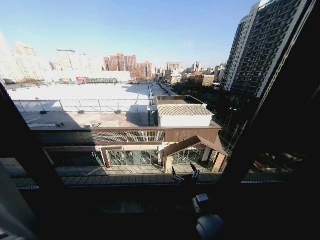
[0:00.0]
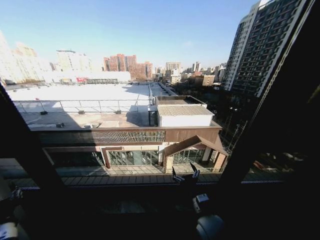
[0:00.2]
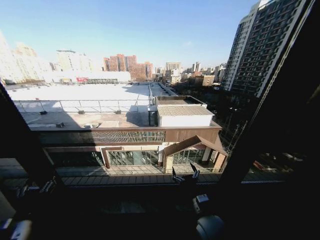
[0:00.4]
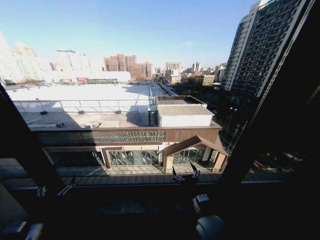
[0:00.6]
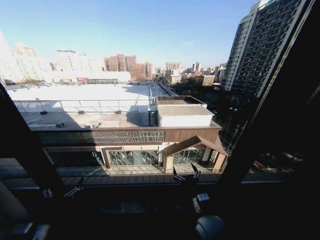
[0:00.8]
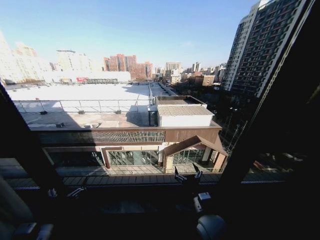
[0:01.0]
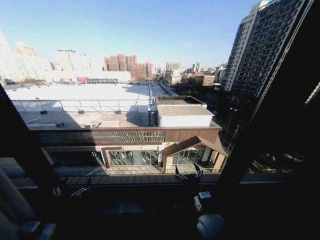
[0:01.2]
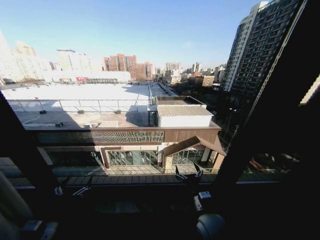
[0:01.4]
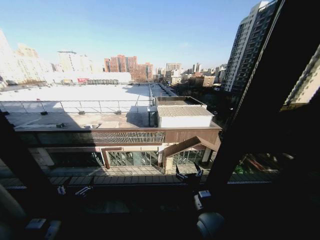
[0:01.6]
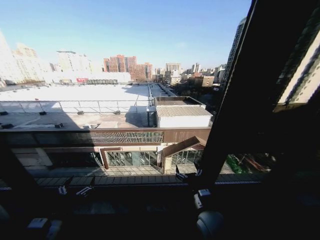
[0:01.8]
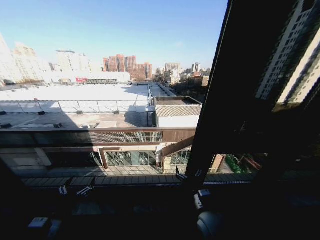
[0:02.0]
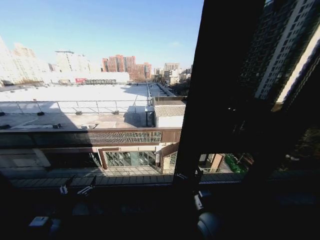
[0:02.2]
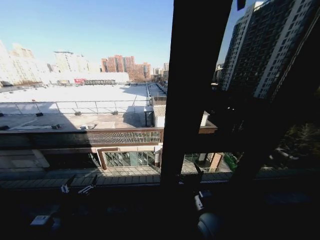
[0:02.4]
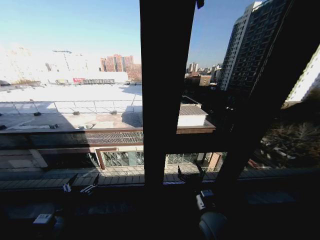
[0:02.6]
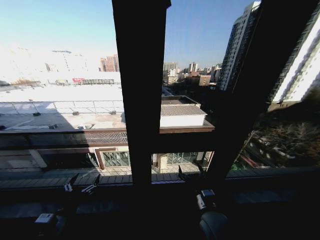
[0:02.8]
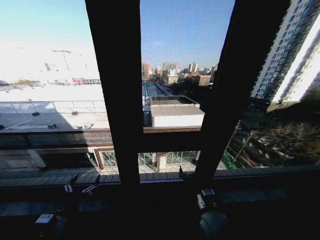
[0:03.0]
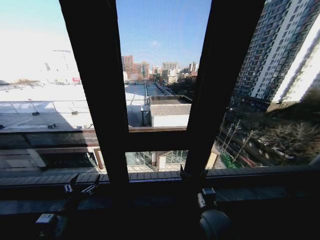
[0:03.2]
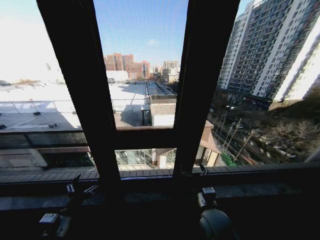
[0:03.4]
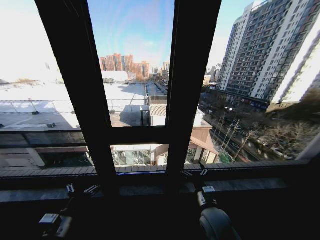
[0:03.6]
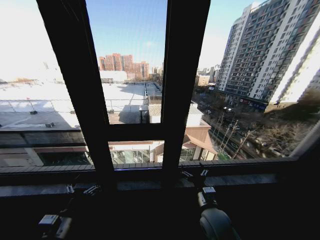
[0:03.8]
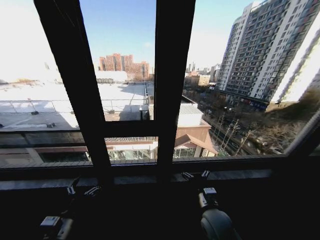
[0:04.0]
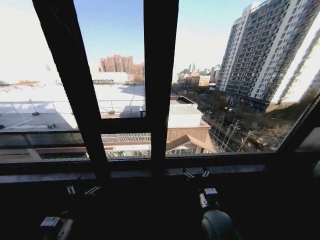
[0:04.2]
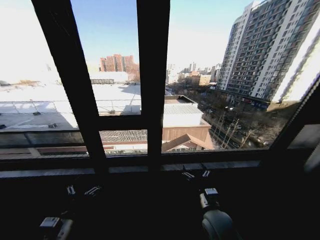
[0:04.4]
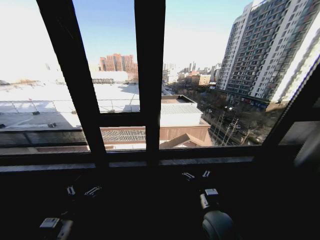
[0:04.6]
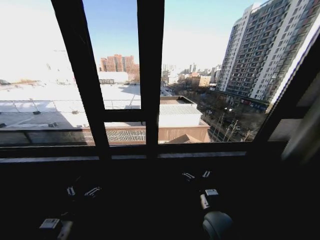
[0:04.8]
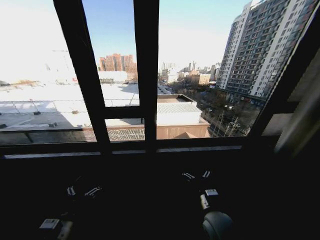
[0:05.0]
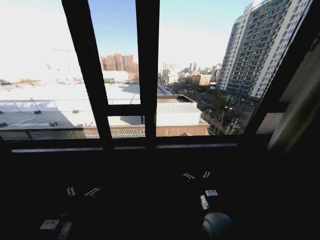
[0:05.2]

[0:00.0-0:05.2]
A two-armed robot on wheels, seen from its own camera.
Task of the whole recording: Open the curtains by pulling them apart, changing their state from closed to fully open.
0:00.0 to 0:01.8: The left gripper shifts roughly 10 cm to the right, and opens up.

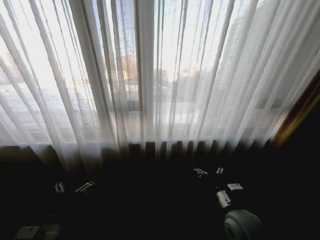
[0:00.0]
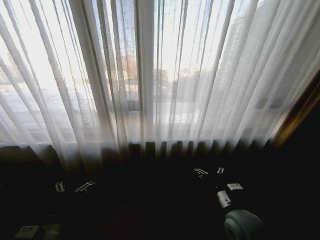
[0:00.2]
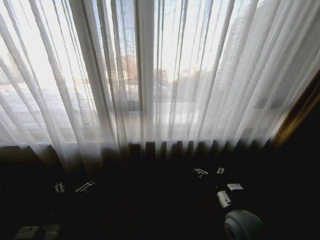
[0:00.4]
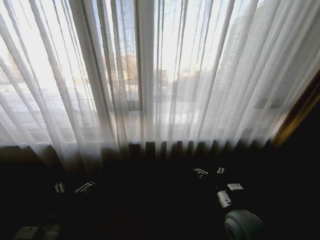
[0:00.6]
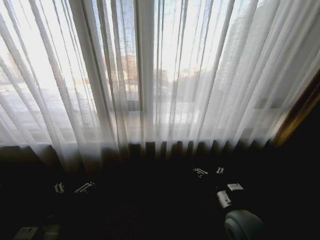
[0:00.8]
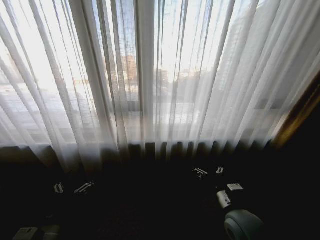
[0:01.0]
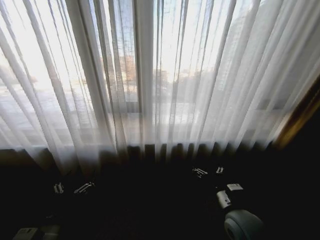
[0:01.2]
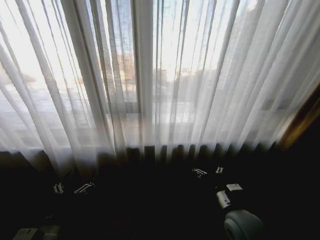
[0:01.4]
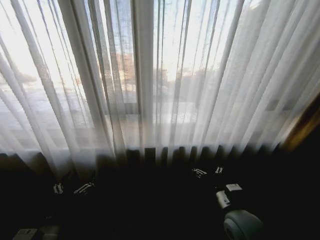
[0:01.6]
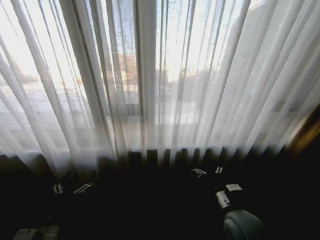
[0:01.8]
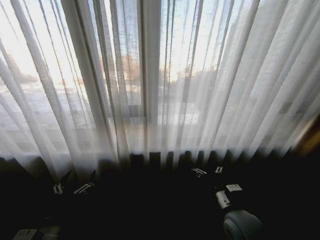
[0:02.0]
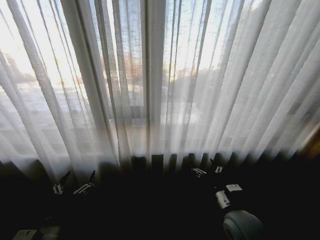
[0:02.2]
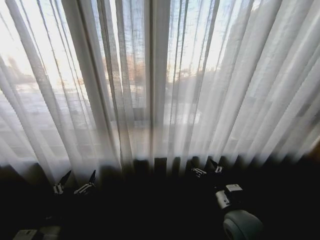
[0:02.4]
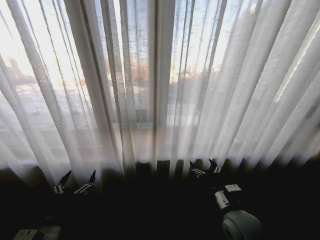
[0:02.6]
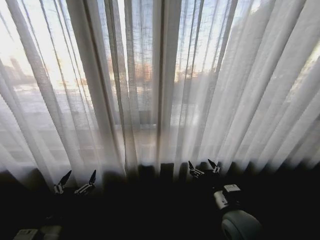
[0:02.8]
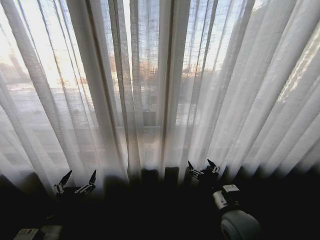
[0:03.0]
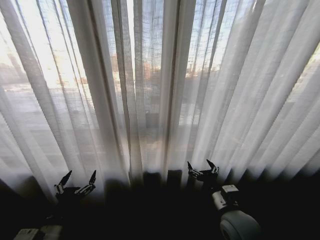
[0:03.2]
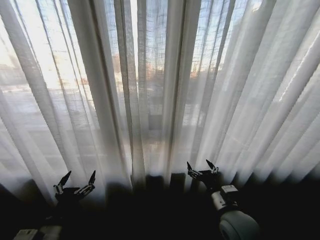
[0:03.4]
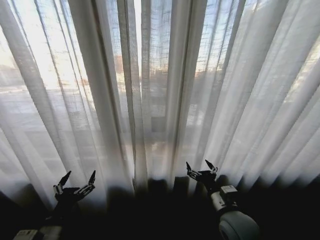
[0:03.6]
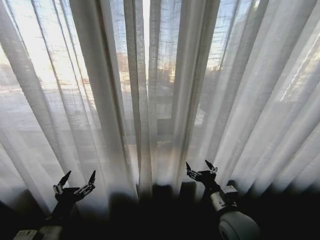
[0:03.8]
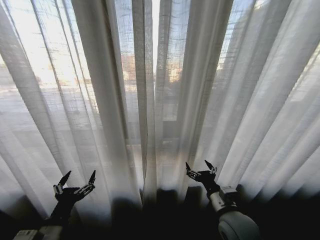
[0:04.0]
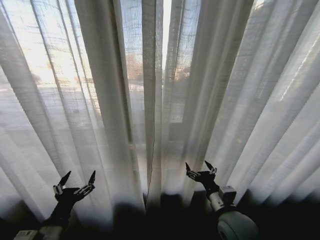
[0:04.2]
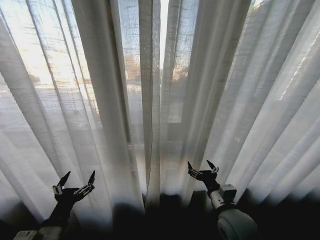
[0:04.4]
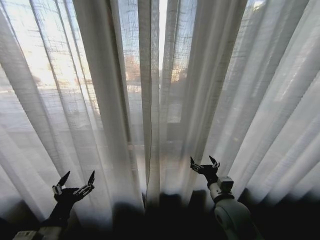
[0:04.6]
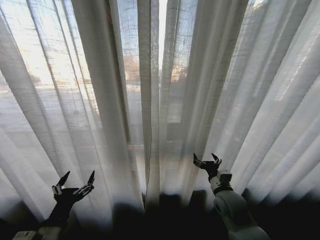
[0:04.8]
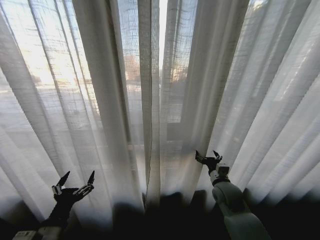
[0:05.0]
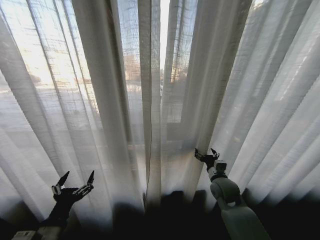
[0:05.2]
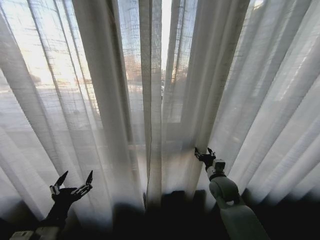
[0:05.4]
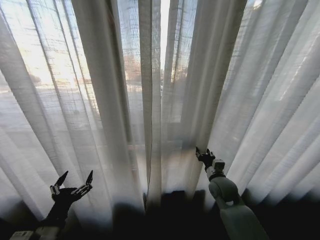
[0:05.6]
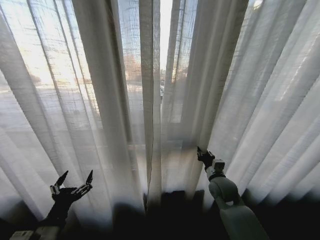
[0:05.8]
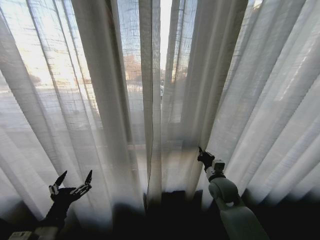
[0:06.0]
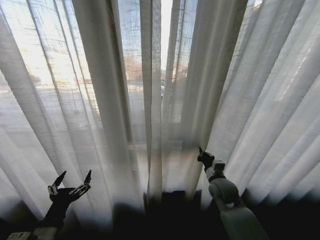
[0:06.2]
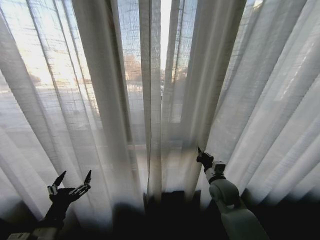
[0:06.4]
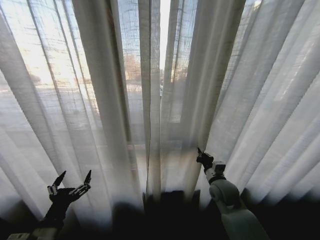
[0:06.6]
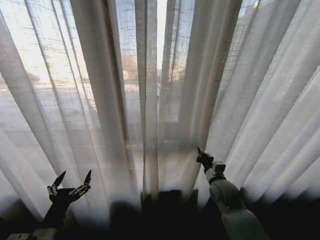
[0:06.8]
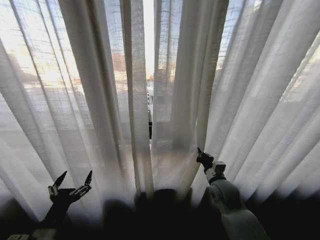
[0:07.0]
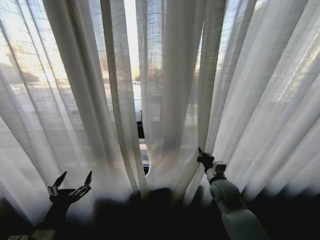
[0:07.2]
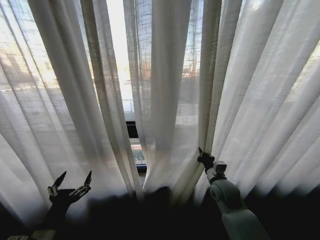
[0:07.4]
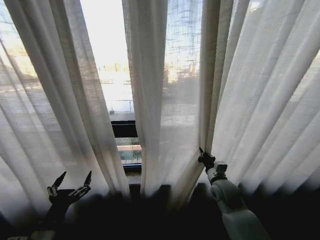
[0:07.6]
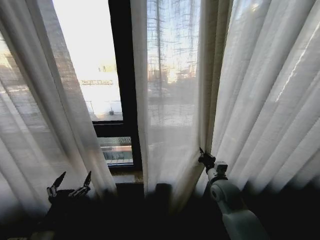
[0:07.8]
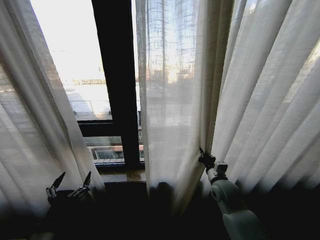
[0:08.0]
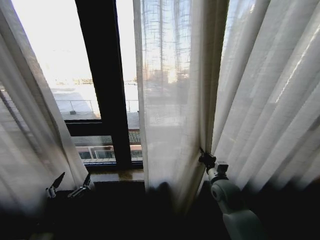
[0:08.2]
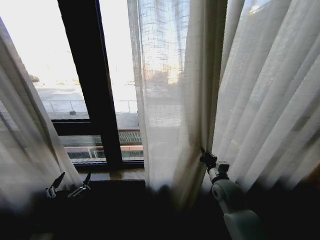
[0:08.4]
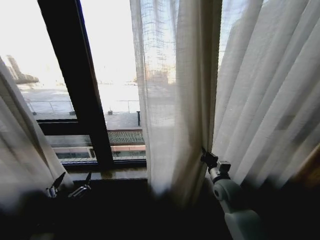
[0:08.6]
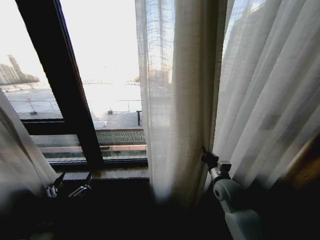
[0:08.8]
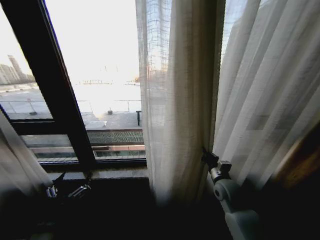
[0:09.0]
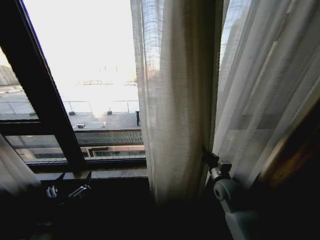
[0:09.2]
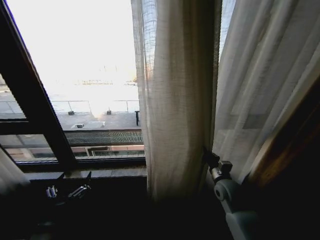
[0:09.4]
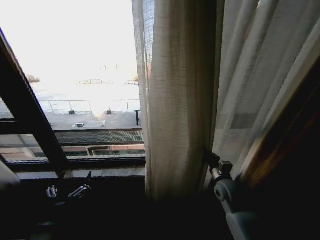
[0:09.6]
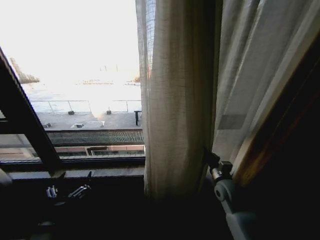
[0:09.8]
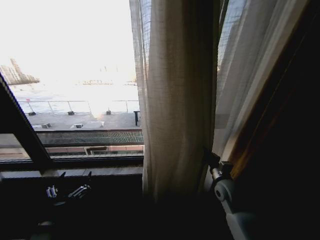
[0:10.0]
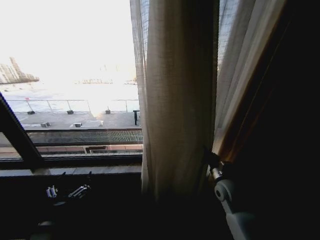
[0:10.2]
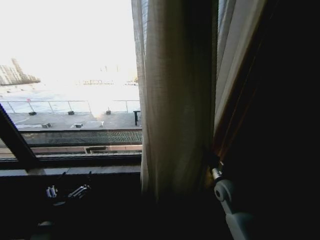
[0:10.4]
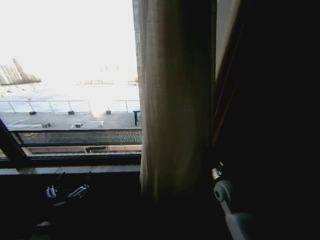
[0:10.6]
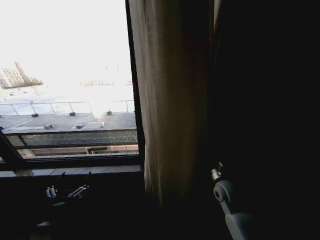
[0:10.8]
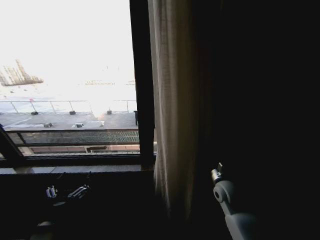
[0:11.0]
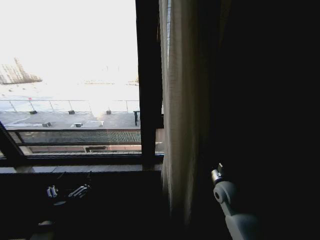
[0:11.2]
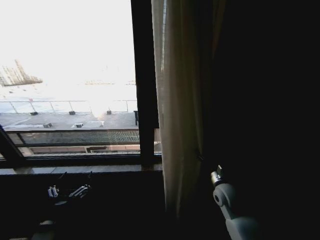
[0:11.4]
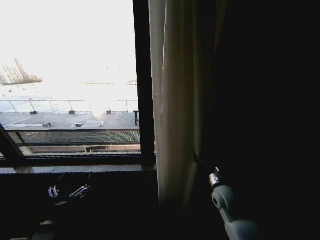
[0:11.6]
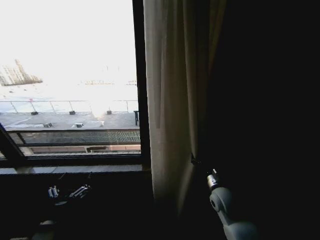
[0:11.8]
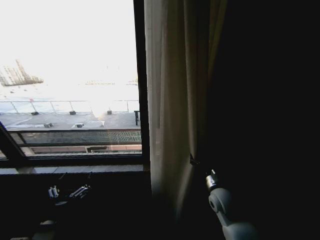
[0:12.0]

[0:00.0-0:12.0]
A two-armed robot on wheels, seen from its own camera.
Task of the whole recording: Open the curtains by pulling them apart, changing their state from closed to fully open.
0:04.4 to 0:06.0: The right gripper goes some 15 cm forward, and closes up.
0:10.4 to 0:12.0: The right gripper opens up.

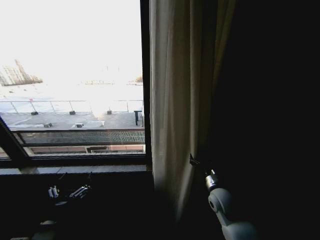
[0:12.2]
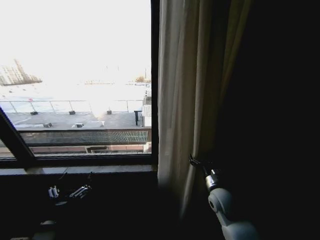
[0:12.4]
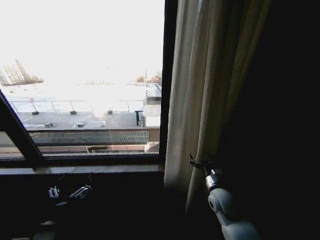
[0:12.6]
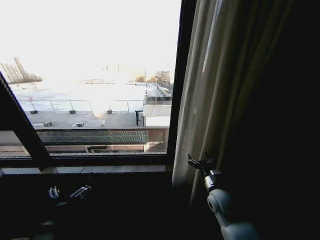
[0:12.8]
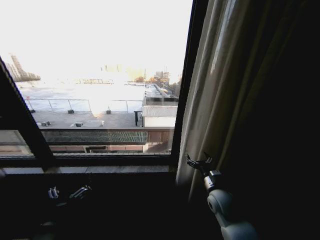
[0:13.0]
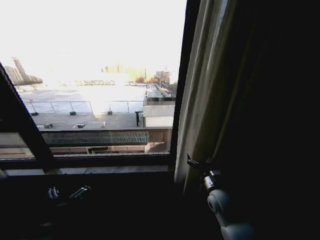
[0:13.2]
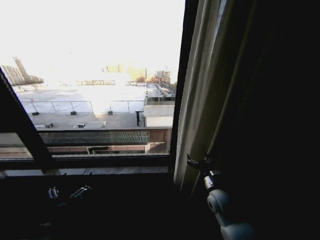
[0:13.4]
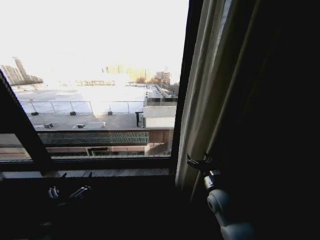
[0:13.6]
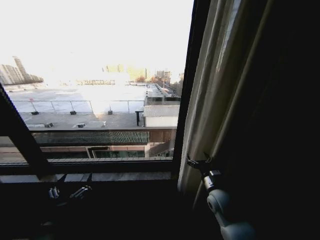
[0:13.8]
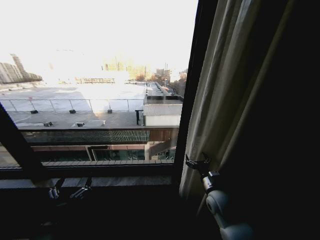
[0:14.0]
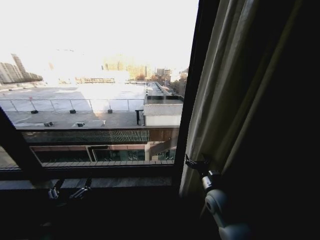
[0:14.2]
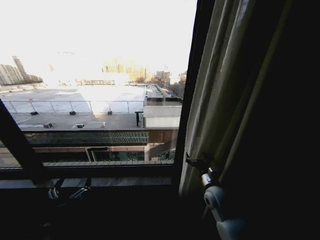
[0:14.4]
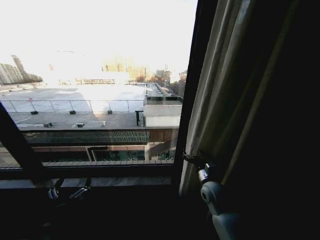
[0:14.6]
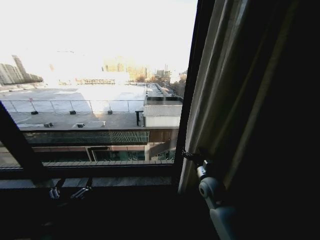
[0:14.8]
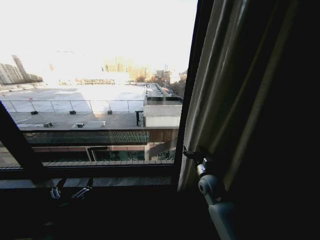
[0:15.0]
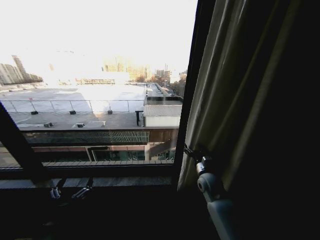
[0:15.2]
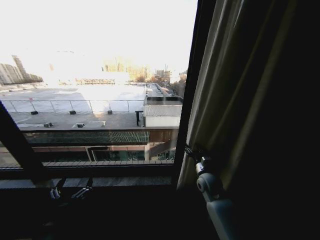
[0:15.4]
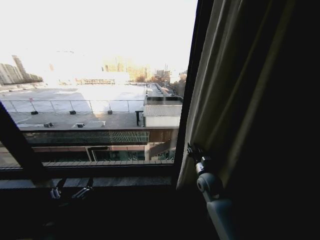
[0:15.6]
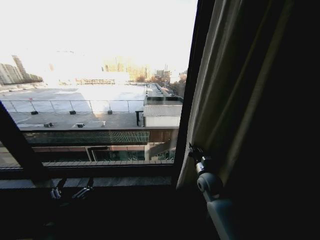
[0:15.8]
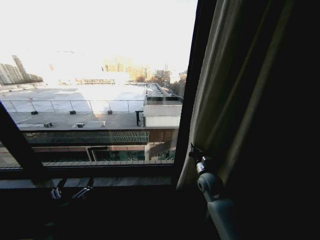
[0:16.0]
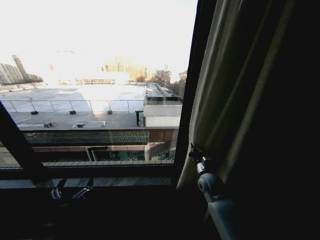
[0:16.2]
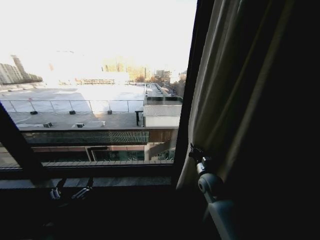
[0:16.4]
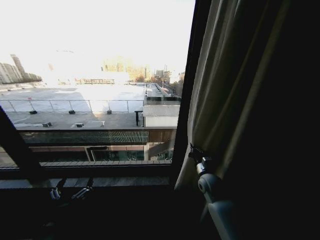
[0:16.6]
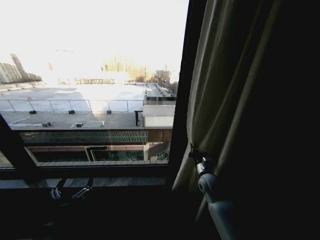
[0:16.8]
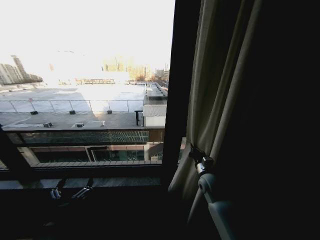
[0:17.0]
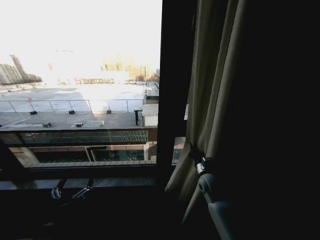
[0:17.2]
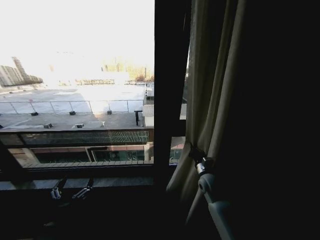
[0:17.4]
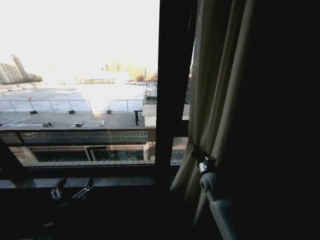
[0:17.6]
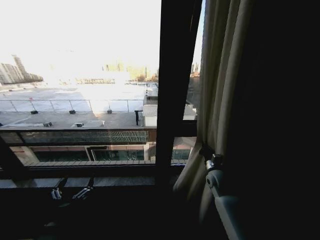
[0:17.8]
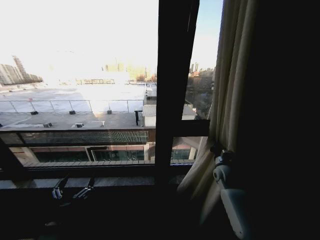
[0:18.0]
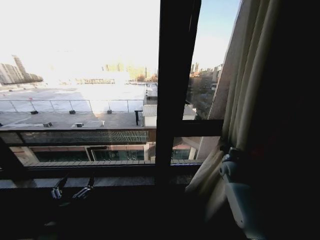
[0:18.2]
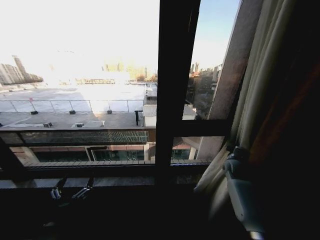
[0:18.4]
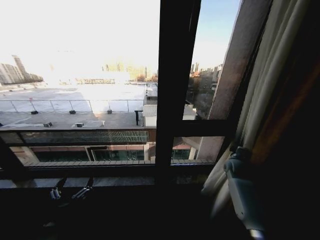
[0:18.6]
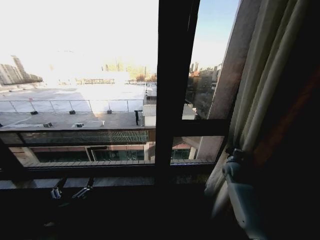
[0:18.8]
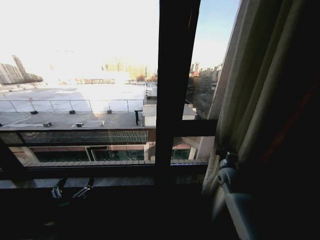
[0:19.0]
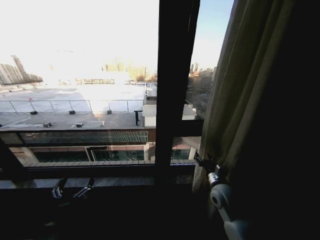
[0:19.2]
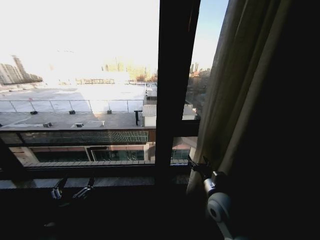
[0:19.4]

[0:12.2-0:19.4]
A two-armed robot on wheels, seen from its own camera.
Task of the whole recording: Open the curtains by pulling them apart, changing their state from closed to fully open.
0:13.6 to 0:15.0: The right gripper travels forward by some 5 cm.
0:15.0 to 0:16.6: The right gripper closes up.
0:16.6 to 0:18.0: The right gripper shifts some 10 cm to the right.
0:18.0 to 0:19.4: The right gripper shifts about 15 cm backward and to the left, and opens up.
